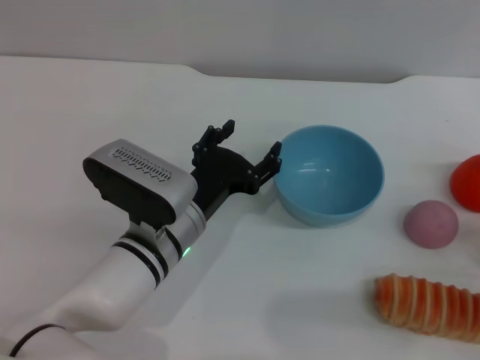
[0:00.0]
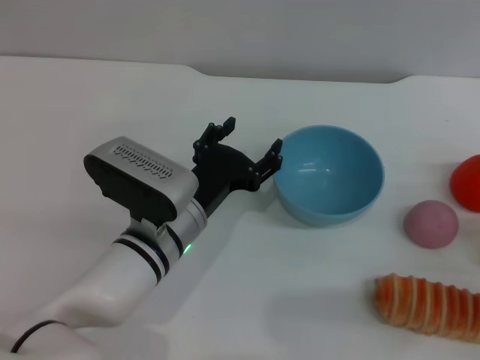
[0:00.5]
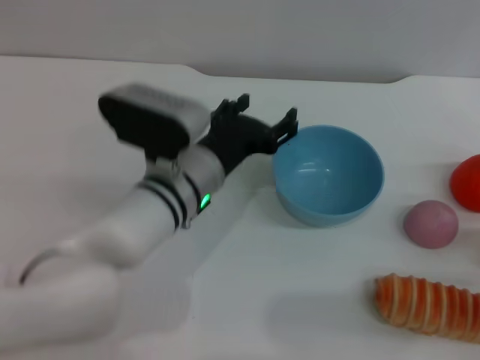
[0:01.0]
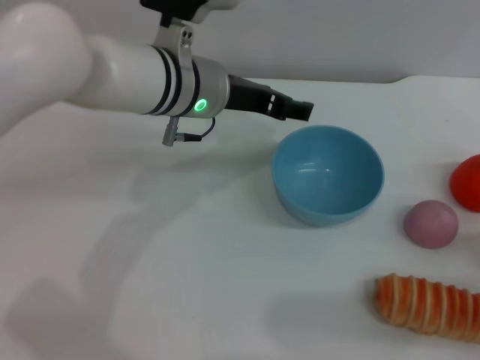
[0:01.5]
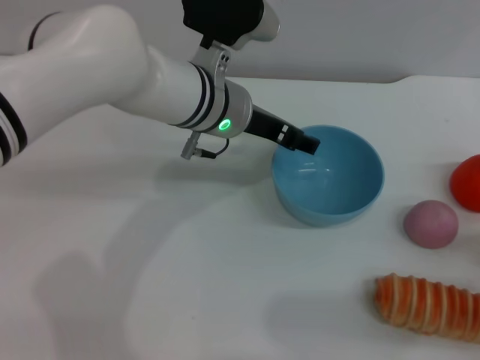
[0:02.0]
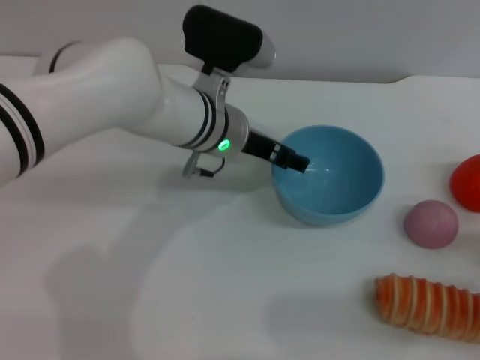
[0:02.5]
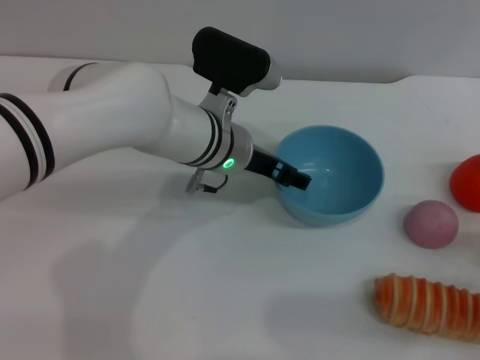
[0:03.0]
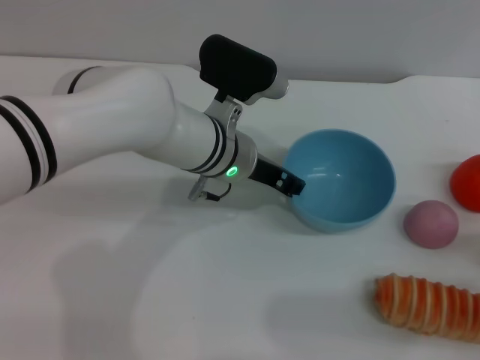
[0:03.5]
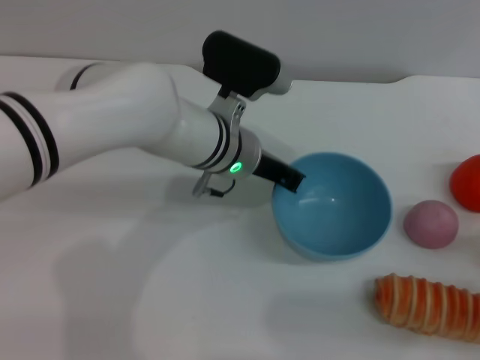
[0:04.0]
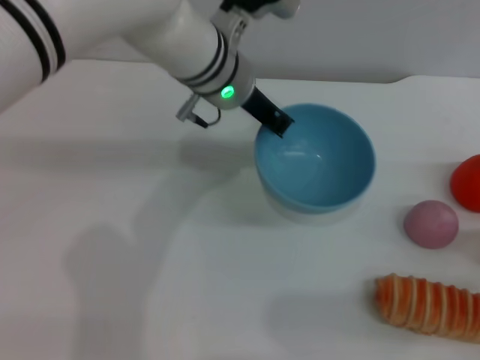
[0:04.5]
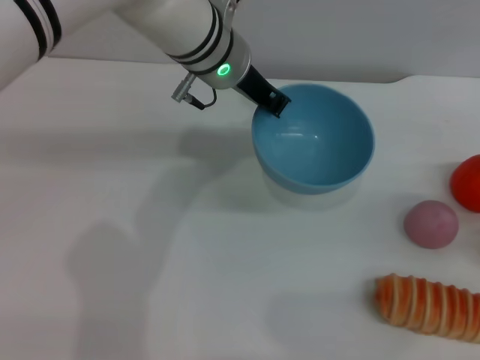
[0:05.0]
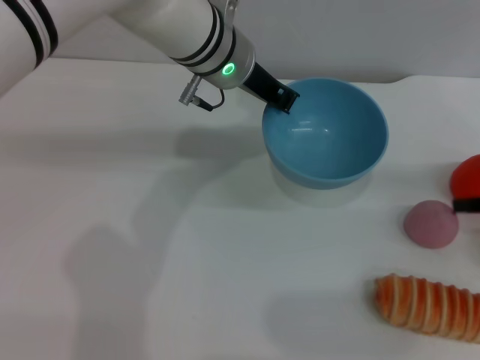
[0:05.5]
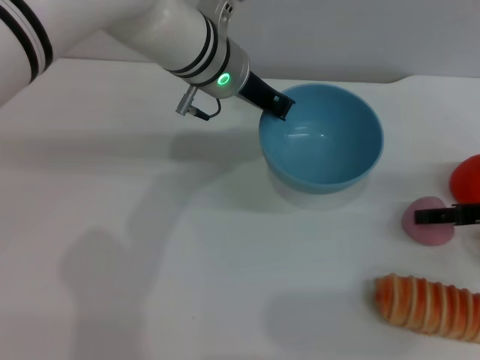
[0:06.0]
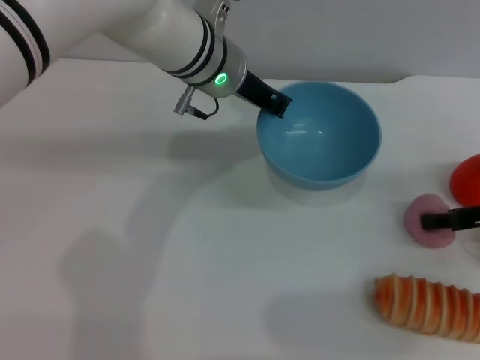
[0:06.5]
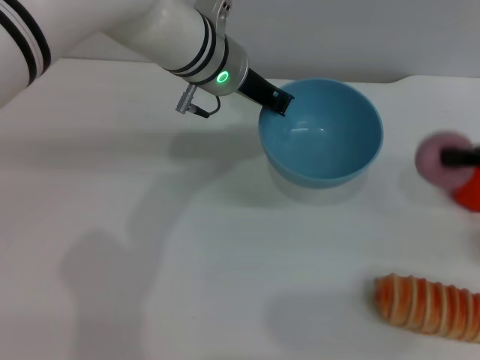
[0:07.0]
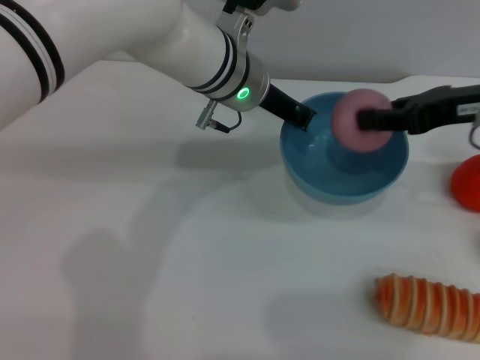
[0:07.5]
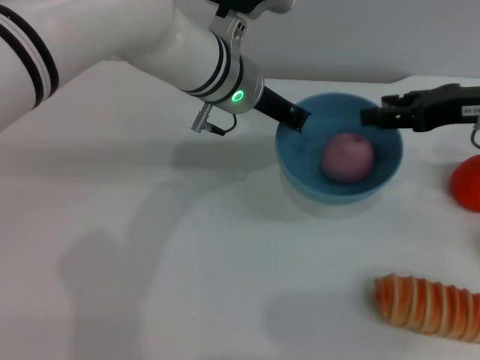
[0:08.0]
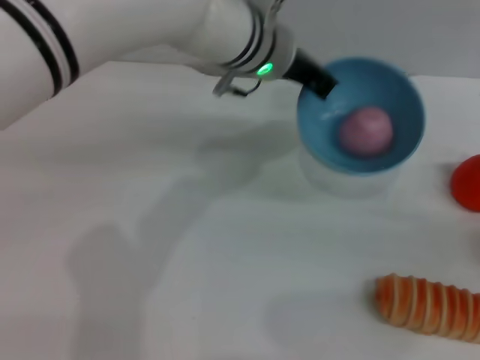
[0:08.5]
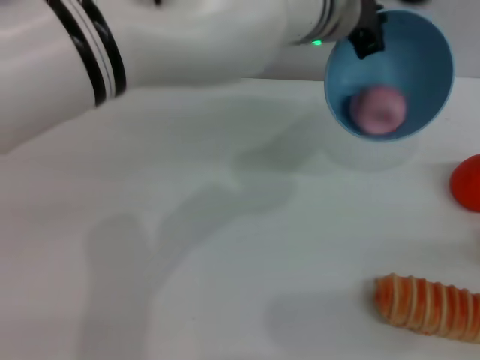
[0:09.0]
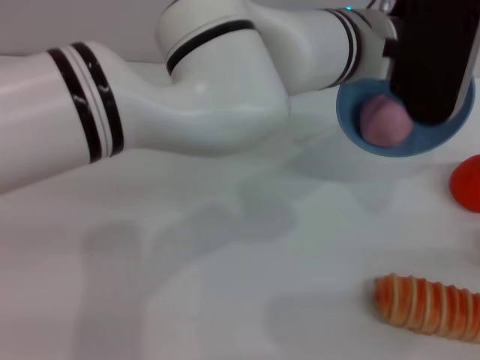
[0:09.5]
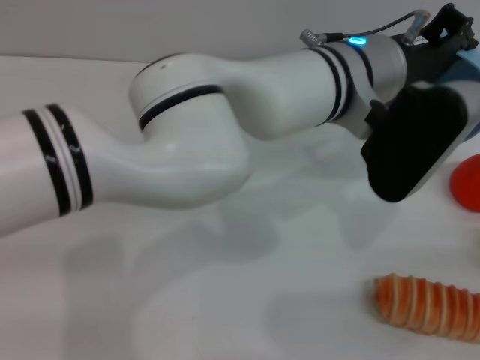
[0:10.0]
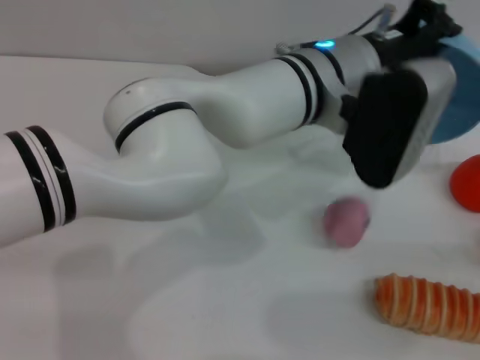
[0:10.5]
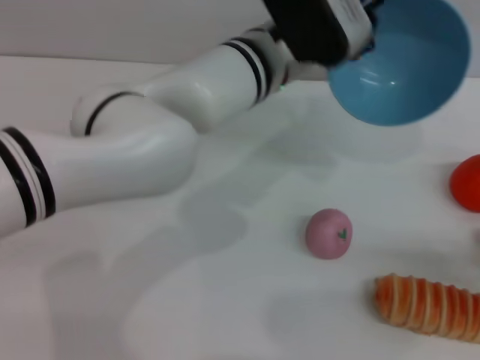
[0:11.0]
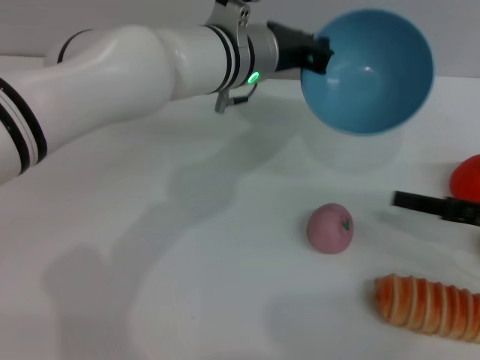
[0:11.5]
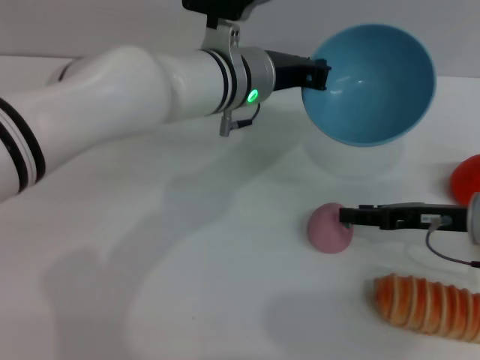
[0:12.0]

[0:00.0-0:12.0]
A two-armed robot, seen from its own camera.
Task of the whole recording: put the peach into the blue bowl and pour it out repeatedly.
Step, 0:00.0 to 0:05.0: Pick up the bowl with the left gripper.
Step, 0:05.5 to 0:06.5: Pick up the peach with the right gripper.
Step, 0:07.5 to 0:08.0: Place the peach into the bowl.
Step, 0:08.5 to 0:10.5: Pour the peach out of bowl.
0:00.0 to 0:02.0: The left gripper heads forward and upward, covering some 15 cm.
0:02.0 to 0:04.0: The left gripper closes up.
0:04.0 to 0:06.0: The right gripper heads forward and upward, covering some 15 cm, while the left gripper shifts approximately 5 cm upward.
0:06.0 to 0:08.0: The right gripper moves upward and to the left, roughly 10 cm, and closes and opens again.
0:08.0 to 0:10.0: The right gripper travels backward, to the right and downward by some 25 cm. Meanwhile the left gripper is displaced to the right and backward by roughly 10 cm.
0:10.0 to 0:12.0: The left gripper is displaced to the left by some 10 cm, while the right gripper moves forward and to the left, about 20 cm.

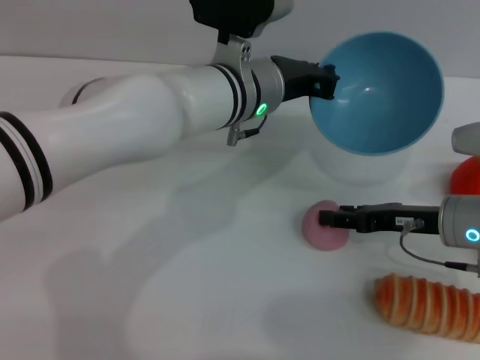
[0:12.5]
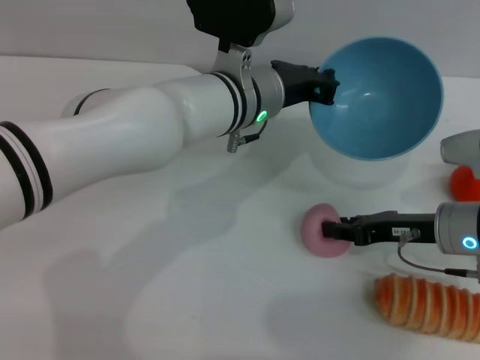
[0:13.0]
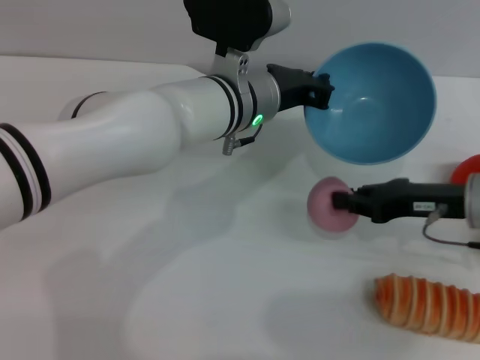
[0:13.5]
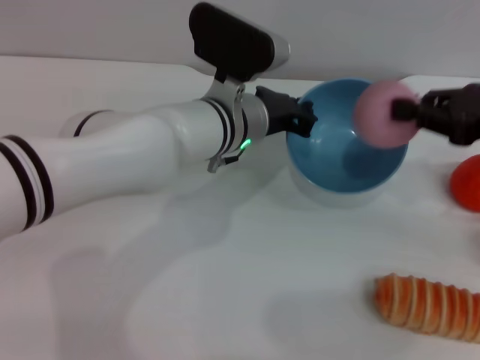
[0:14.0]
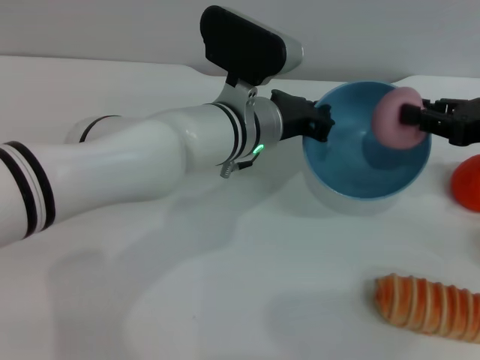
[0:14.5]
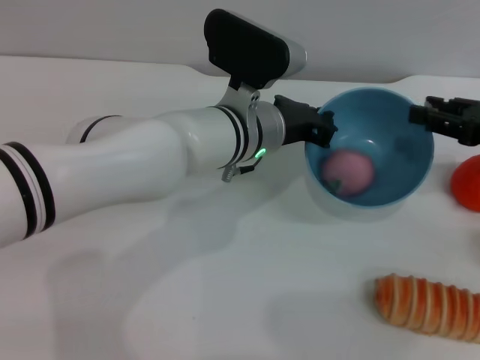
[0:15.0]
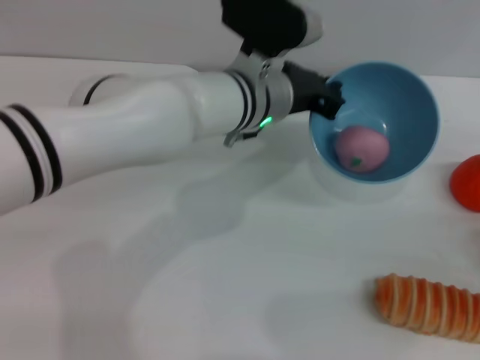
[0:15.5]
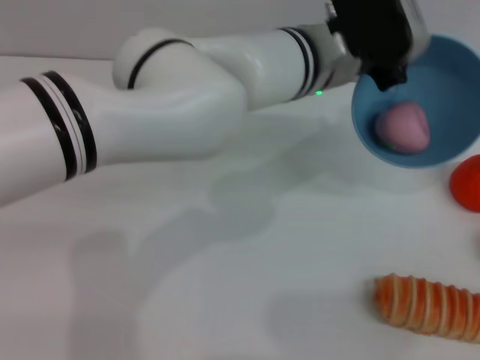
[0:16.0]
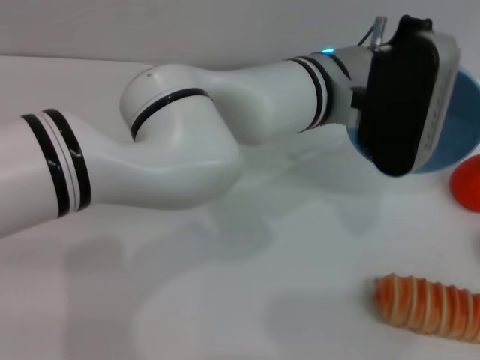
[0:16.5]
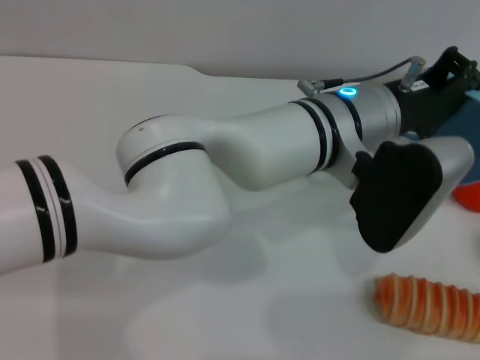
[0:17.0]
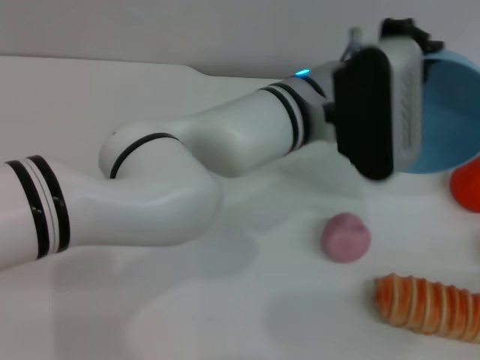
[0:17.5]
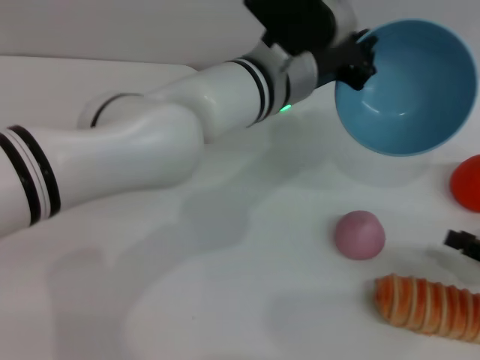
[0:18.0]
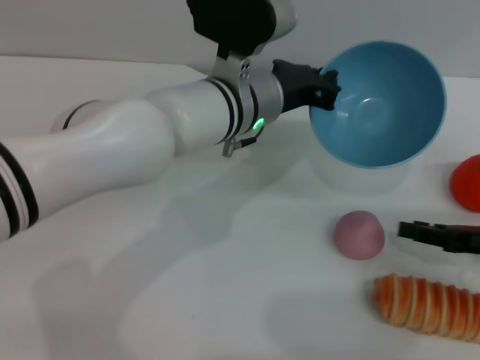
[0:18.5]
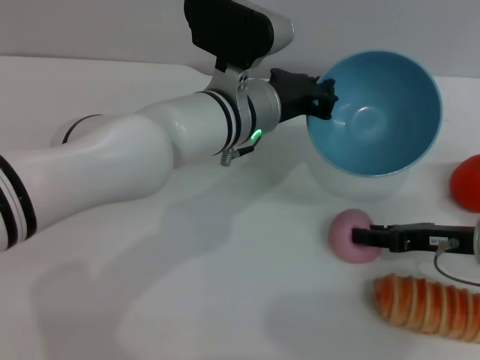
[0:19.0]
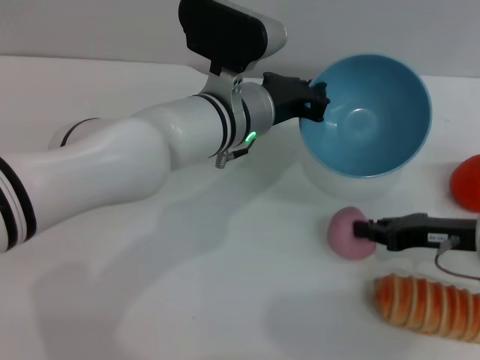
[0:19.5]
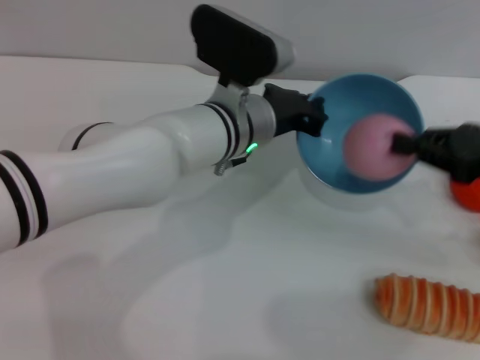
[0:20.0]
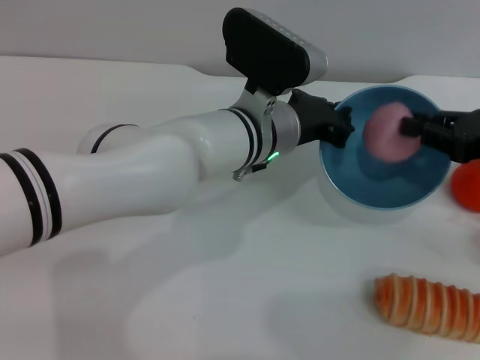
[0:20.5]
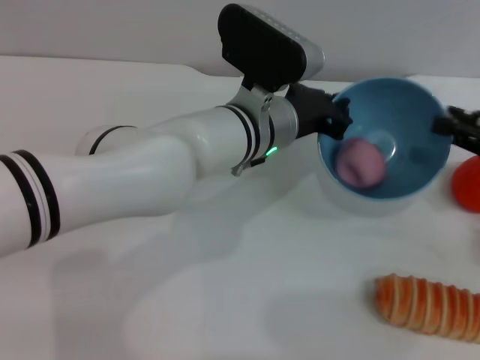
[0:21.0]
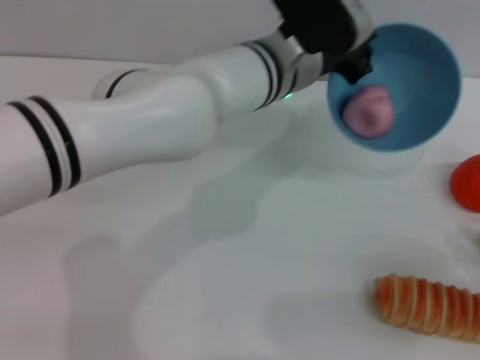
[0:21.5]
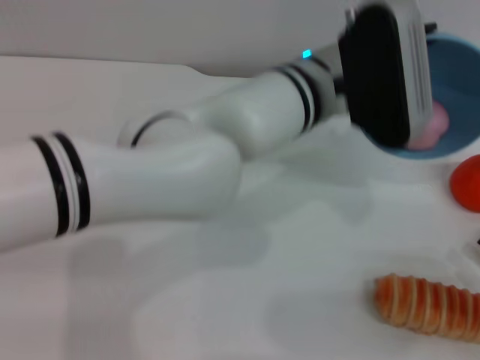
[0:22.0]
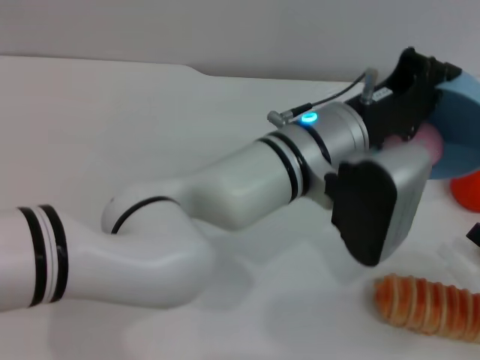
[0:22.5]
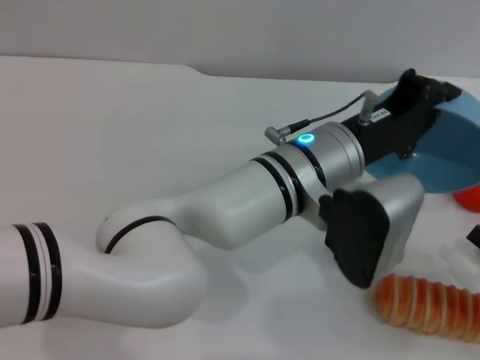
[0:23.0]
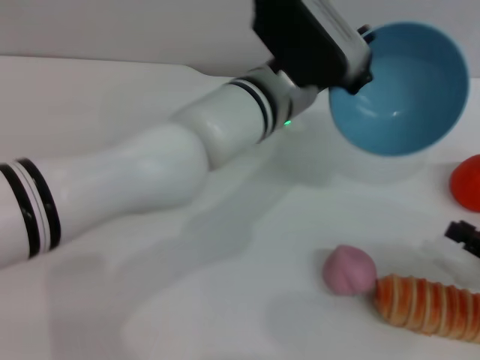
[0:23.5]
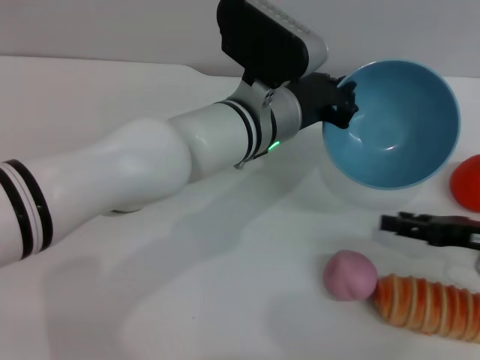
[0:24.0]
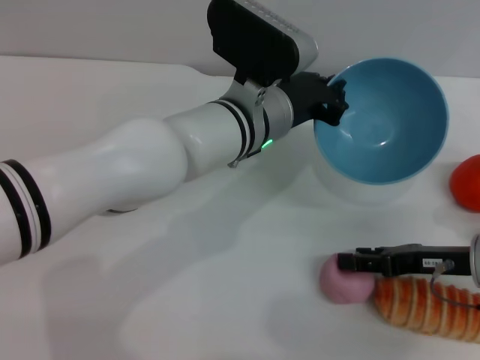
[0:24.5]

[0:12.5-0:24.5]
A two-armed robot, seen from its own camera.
Task of the whole recording: put the peach into the blue bowl and pour it out repeatedly.
Step, 0:14.0 to 0:15.0: Place the peach into the bowl.
Step, 0:15.5 to 0:17.5: Pour the peach out of bowl.
Step, 0:18.0 to 0:19.5: Pick up the peach with the right gripper.
Step, 0:20.0 to 0:20.5: Place the peach into the bowl.
Step, 0:21.0 to 0:23.0: Pour the peach out of bowl.
0:12.5 to 0:14.5: The right gripper goes about 15 cm upward and to the right, and closes.
0:14.5 to 0:16.5: The right gripper heads backward, downward and to the right, covering approximately 25 cm, and opens up, while the left gripper heads to the right and upward, covering about 10 cm.
0:16.5 to 0:18.5: The right gripper is displaced forward and to the left by approximately 20 cm, while the left gripper shifts some 5 cm to the left.
0:18.5 to 0:20.5: The right gripper moves upward, some 10 cm, and closes its fingers.
0:20.5 to 0:22.5: The right gripper moves backward and downward, roughly 20 cm, and opens up. Meanwhile the left gripper ends up roughly 5 cm from where it was.
0:22.5 to 0:24.5: The left gripper is displaced forward by about 5 cm. Meanwhile the right gripper moves forward and to the left, some 15 cm.

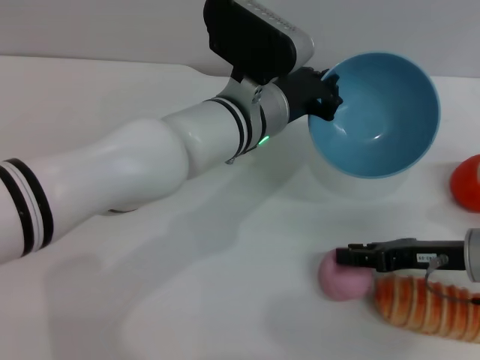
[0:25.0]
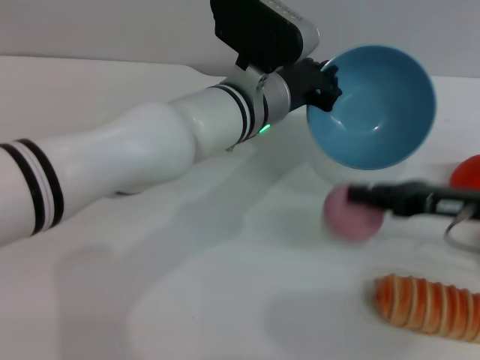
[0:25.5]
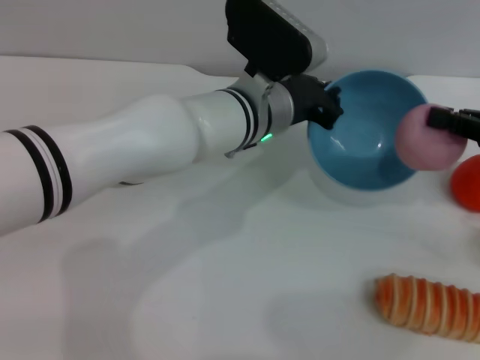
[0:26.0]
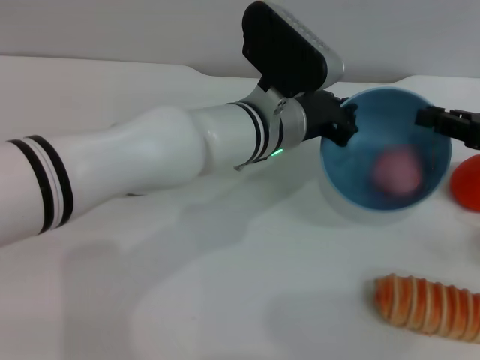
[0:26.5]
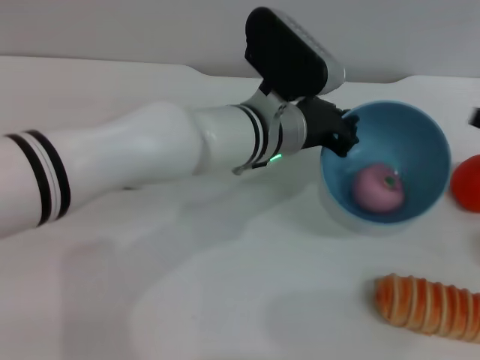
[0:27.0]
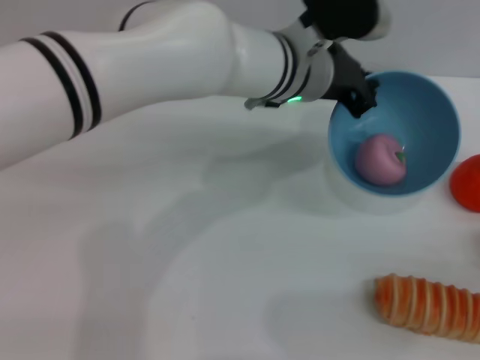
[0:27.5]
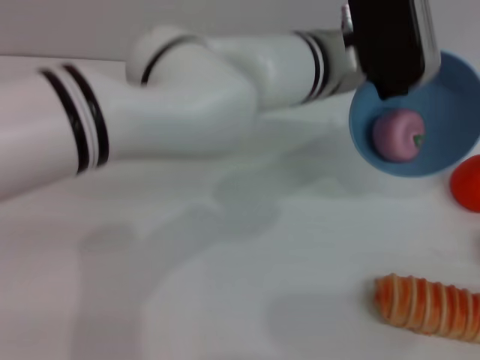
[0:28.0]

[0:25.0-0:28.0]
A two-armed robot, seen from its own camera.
Task of the whole recording: put the peach into the blue bowl and pour it out repeatedly.
Step, 0:26.0 to 0:26.5: Place the peach into the bowl.
0:25.0 to 0:26.5: The right gripper shifts about 10 cm upward and to the right, and closes.
0:26.5 to 0:28.0: The left gripper travels upward by approximately 5 cm; the right gripper is displaced backward, downward and to the right by roughly 25 cm.
